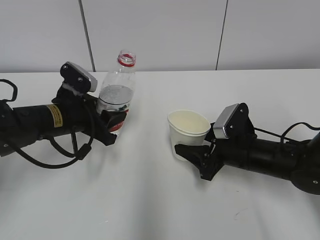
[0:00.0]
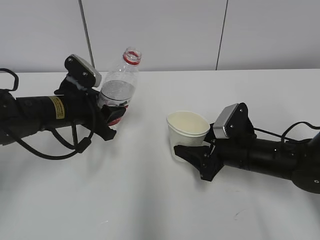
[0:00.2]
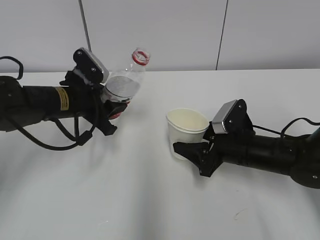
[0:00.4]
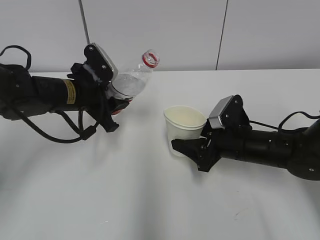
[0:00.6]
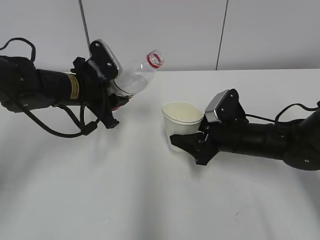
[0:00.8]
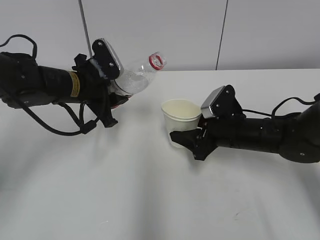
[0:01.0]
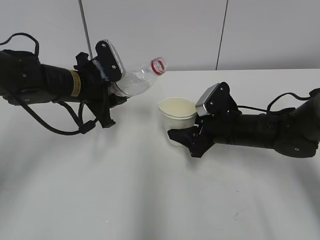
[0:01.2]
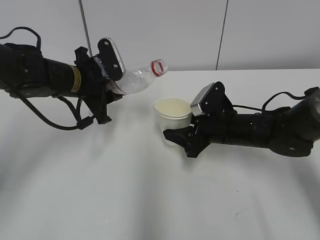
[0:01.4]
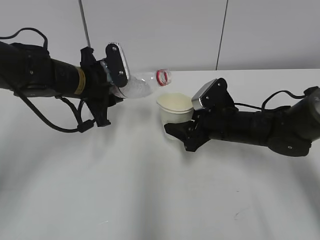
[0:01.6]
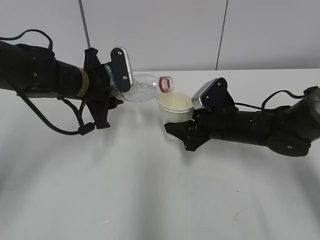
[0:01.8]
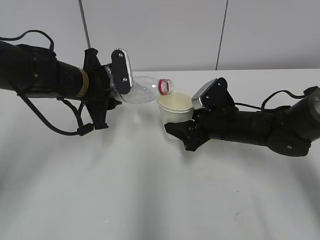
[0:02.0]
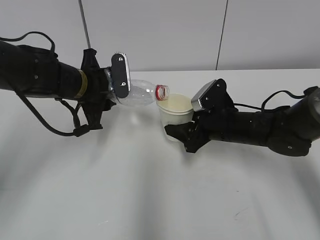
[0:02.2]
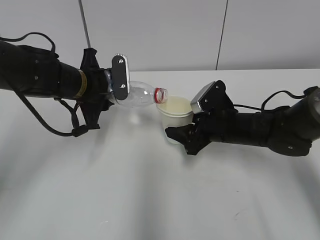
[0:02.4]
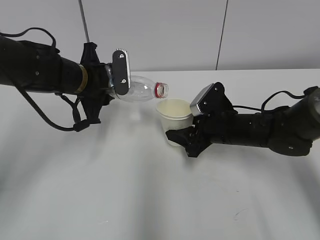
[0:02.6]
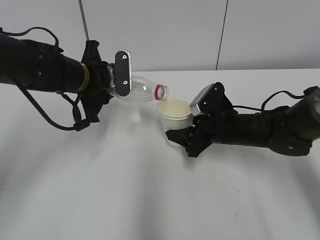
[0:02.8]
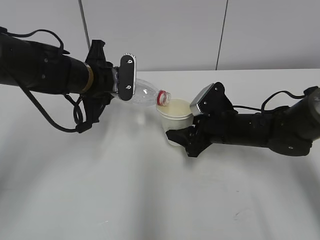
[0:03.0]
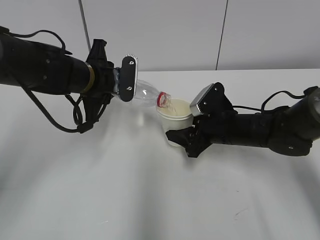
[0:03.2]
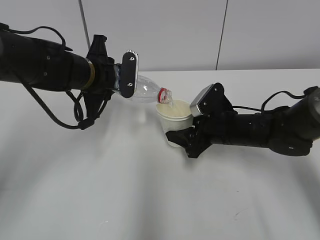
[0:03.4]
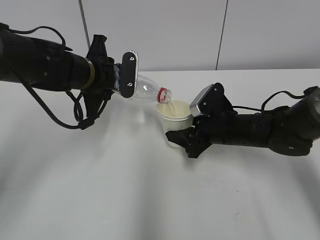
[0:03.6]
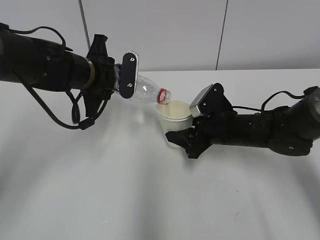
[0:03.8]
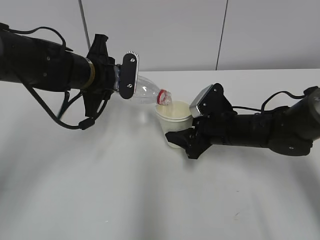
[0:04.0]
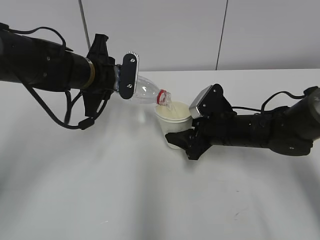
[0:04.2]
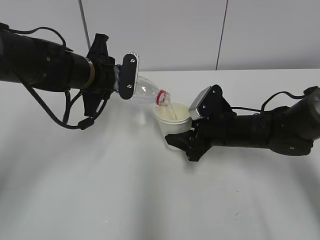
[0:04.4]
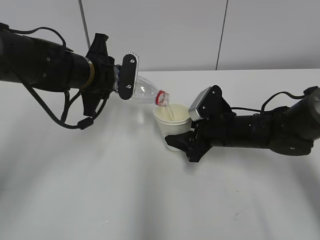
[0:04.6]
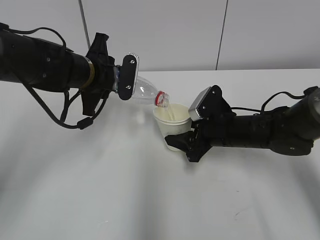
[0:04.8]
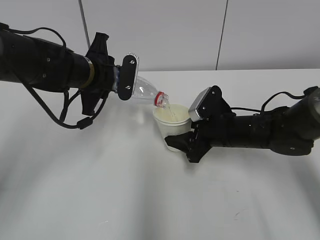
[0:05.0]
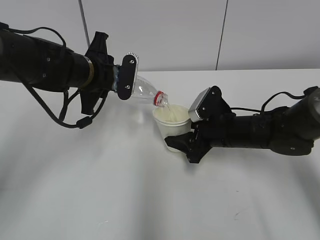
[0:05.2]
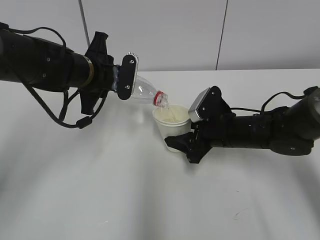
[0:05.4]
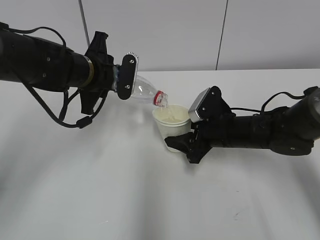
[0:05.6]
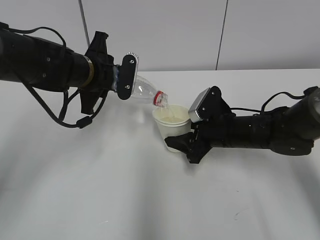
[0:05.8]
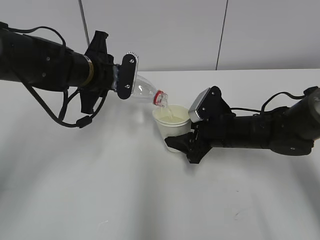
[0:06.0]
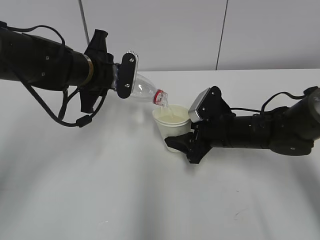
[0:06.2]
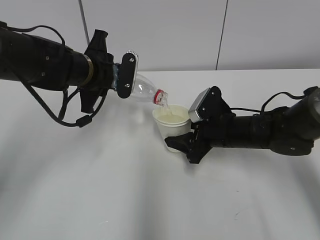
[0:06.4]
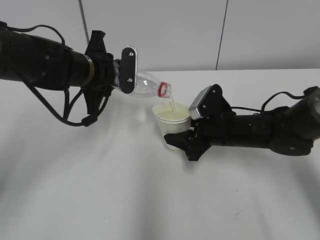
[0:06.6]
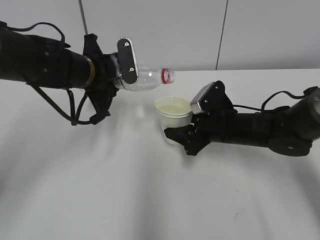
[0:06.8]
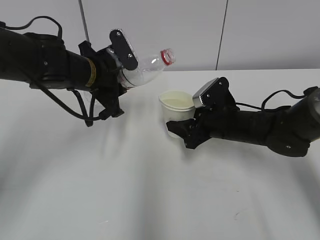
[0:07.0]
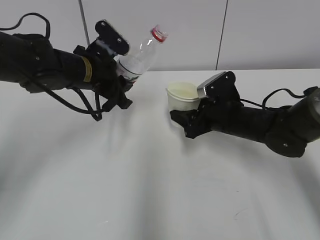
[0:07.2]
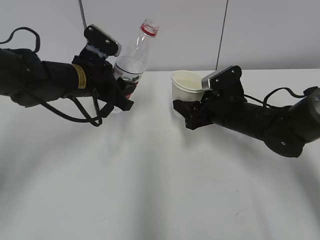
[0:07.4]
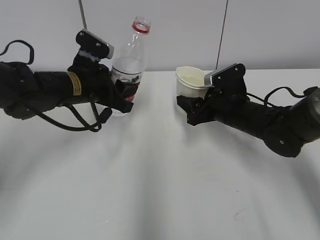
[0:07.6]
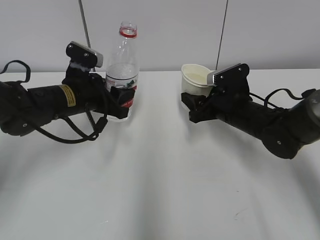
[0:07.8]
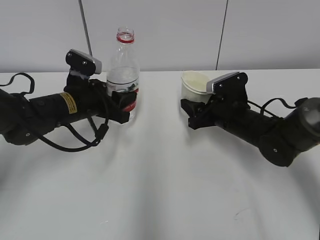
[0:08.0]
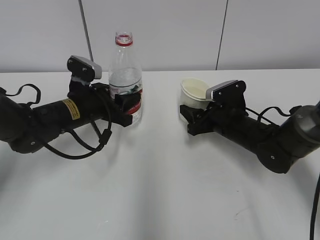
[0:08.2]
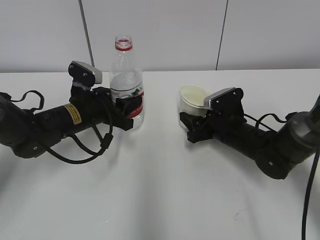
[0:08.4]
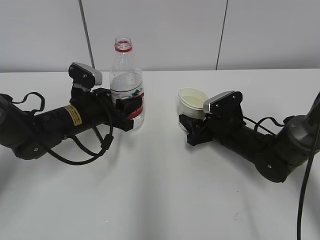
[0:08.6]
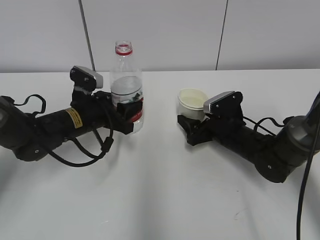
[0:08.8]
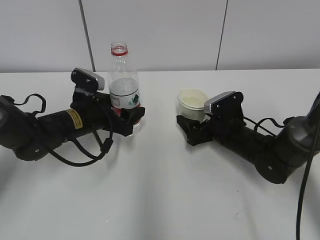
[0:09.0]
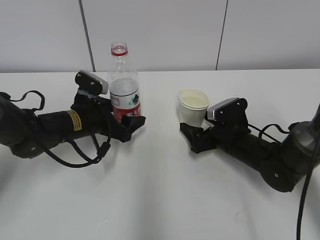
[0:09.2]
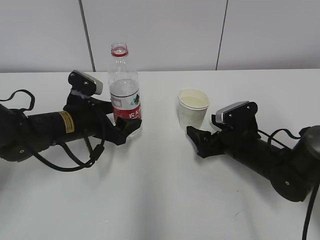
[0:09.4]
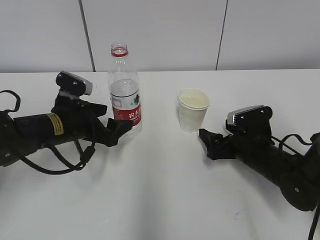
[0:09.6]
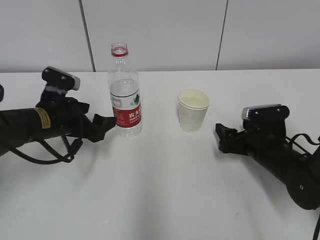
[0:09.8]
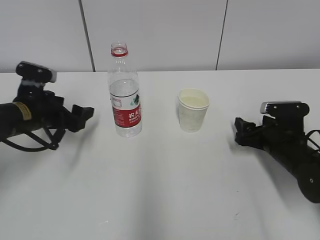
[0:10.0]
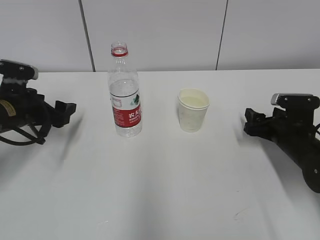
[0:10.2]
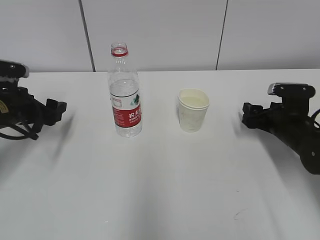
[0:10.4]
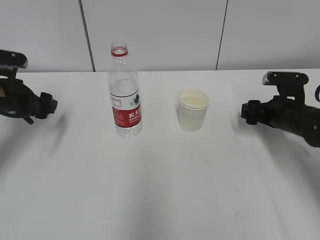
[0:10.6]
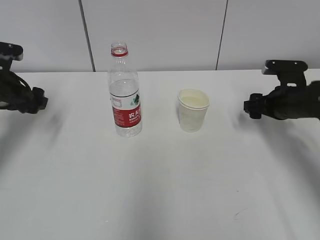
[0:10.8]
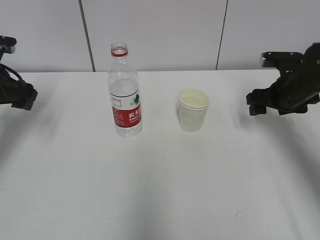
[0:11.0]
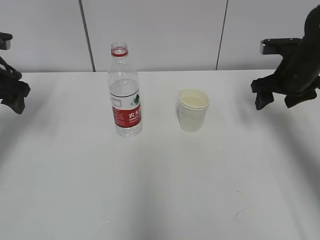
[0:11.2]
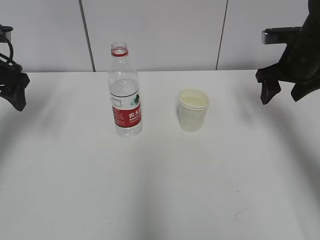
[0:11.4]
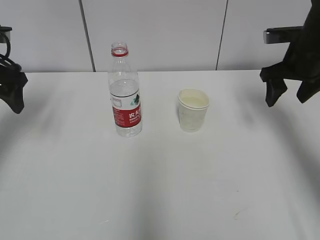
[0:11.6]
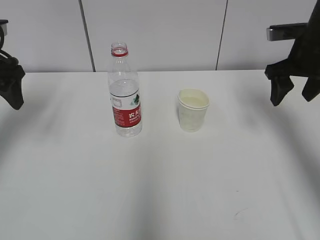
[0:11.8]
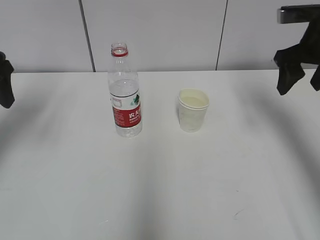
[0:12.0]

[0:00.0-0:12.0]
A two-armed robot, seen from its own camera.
Step, 0:01.2 to 0:04.2: Fill water with the right hand.
Step, 0:01.2 to 0:04.2: Pour water with the left hand.
Step, 0:04.4 to 0:05.4: Collect water with the left hand.
0:00.0 to 0:01.6: The left gripper heads forward, covering some 5 cm, while the right gripper ends up approximately 5 cm from where it was.
0:03.0 to 0:04.4: The grippers move only a little.
0:04.4 to 0:06.0: The two grippers keep their place.
0:07.6 to 0:09.0: Both grippers travel together downward, approximately 5 cm. The right gripper opens its fingers. The left gripper opens its fingers.
0:09.0 to 0:10.4: The right gripper heads to the right, covering approximately 10 cm, and closes up; the left gripper is displaced to the left by about 15 cm.
0:10.4 to 0:12.0: The two grippers go approximately 20 cm upward.

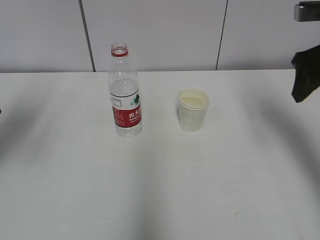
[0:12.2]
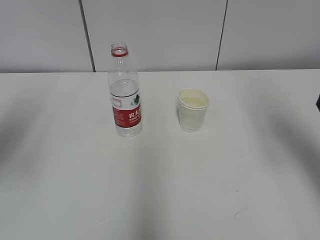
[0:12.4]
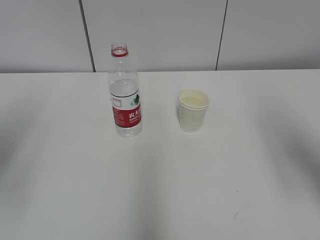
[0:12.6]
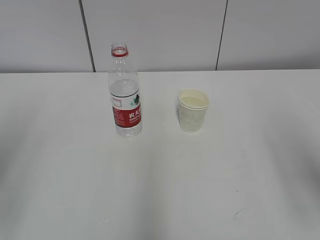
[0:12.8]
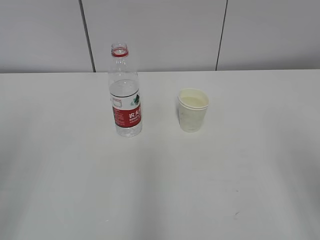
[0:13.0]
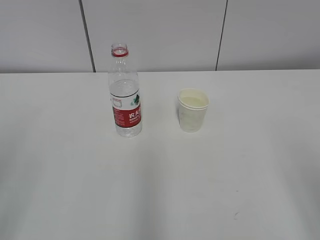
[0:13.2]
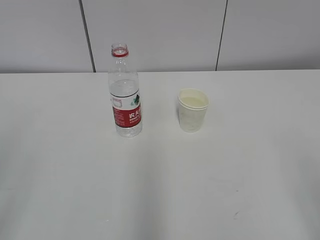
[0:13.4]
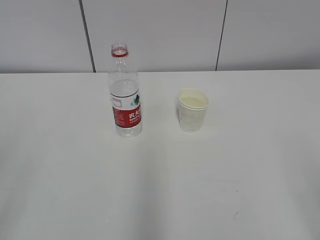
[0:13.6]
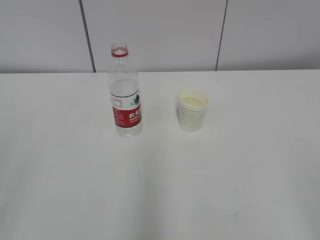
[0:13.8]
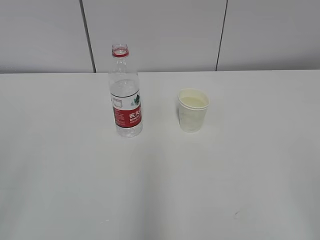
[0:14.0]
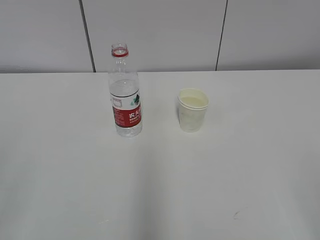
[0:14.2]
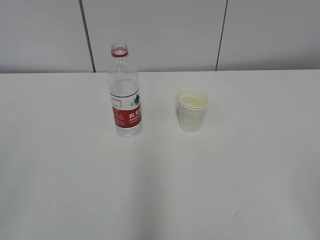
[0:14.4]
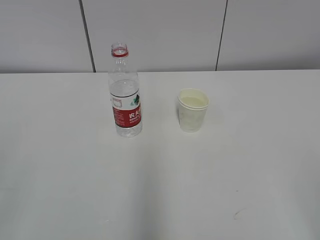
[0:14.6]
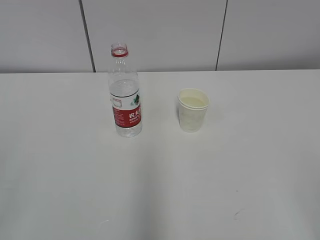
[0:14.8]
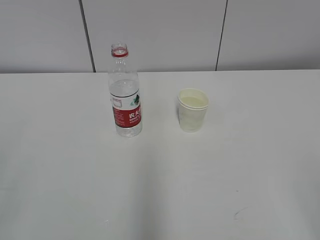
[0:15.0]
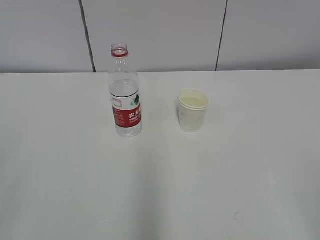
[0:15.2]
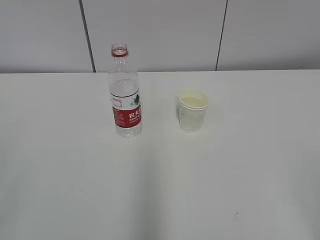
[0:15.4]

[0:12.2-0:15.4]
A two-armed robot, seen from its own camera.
0:12.2 to 0:13.8: Both grippers move backward, approximately 30 cm.

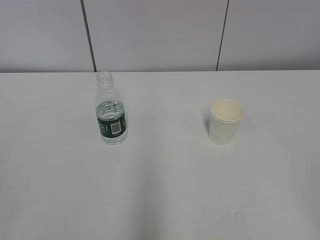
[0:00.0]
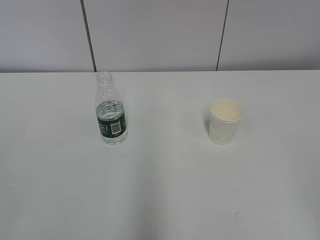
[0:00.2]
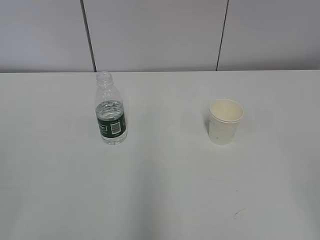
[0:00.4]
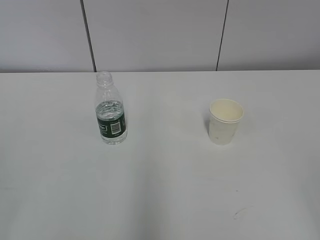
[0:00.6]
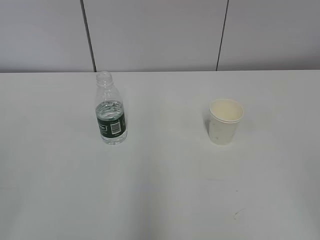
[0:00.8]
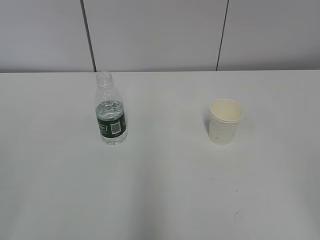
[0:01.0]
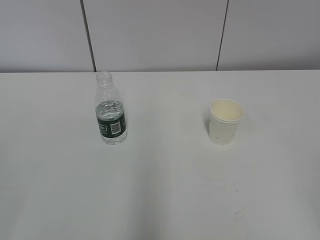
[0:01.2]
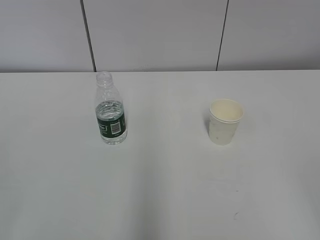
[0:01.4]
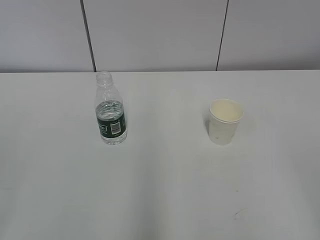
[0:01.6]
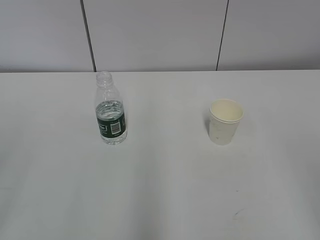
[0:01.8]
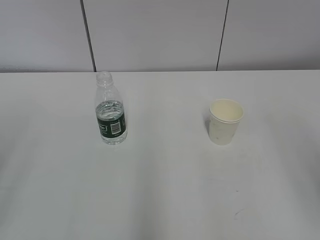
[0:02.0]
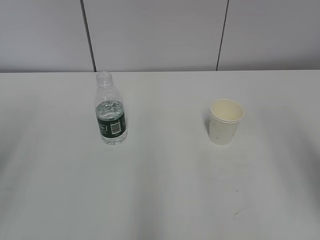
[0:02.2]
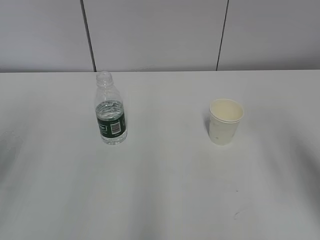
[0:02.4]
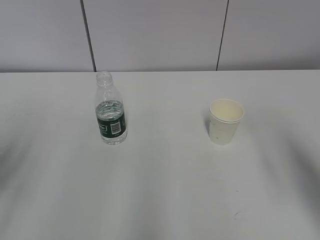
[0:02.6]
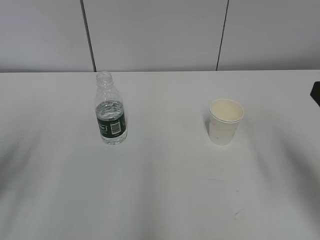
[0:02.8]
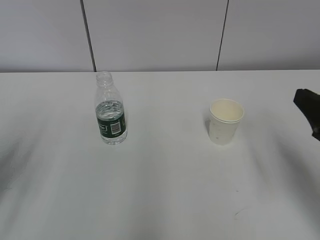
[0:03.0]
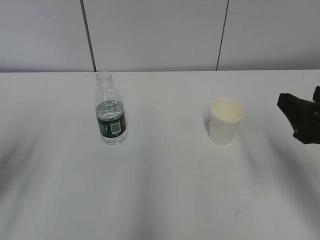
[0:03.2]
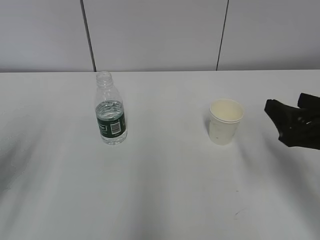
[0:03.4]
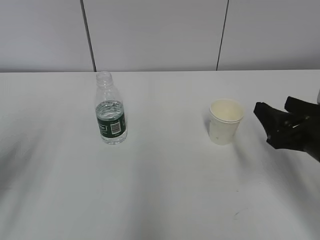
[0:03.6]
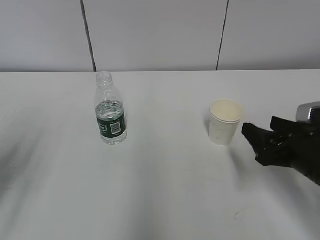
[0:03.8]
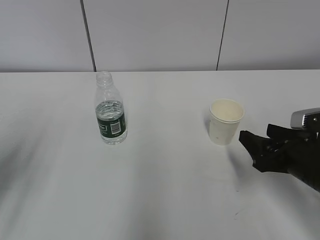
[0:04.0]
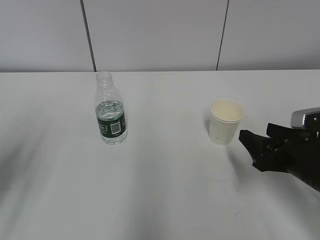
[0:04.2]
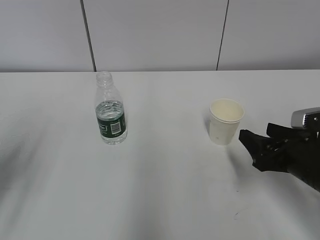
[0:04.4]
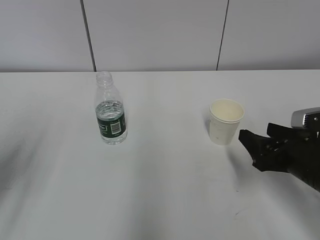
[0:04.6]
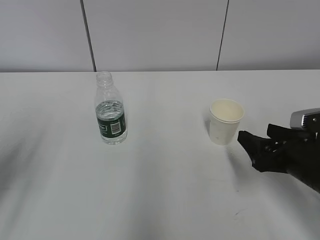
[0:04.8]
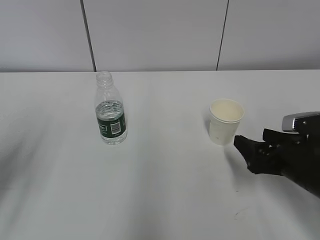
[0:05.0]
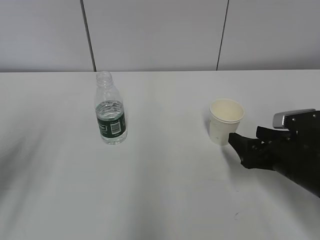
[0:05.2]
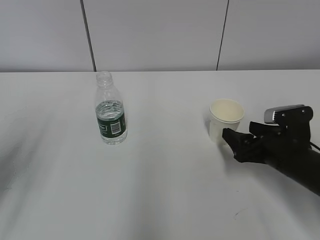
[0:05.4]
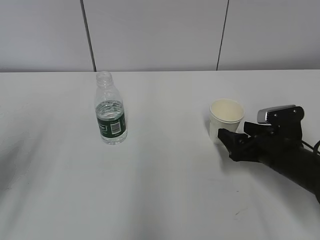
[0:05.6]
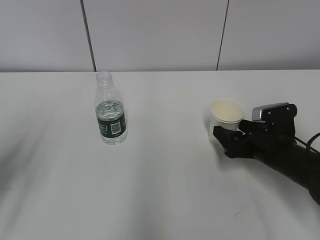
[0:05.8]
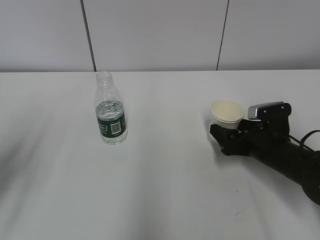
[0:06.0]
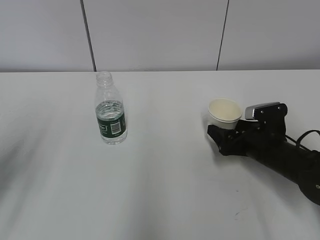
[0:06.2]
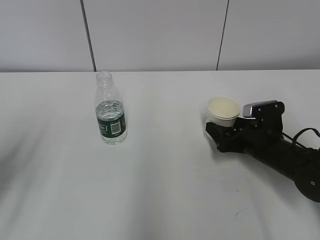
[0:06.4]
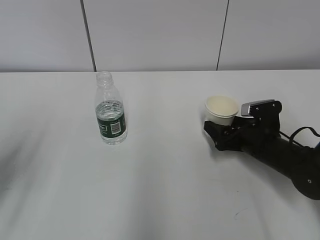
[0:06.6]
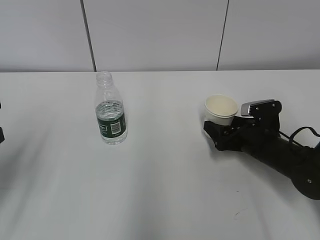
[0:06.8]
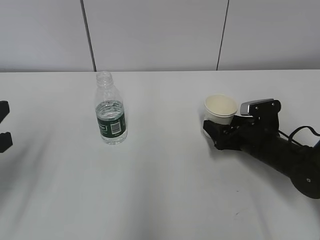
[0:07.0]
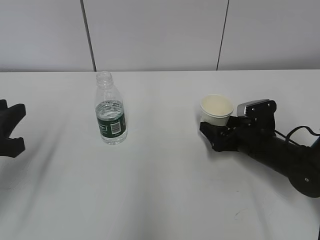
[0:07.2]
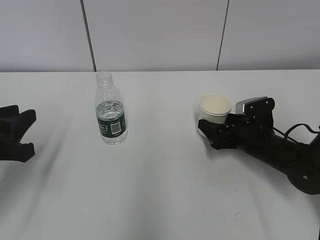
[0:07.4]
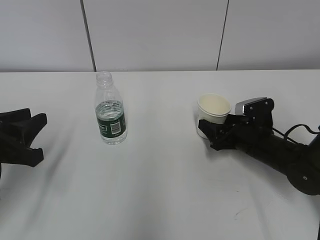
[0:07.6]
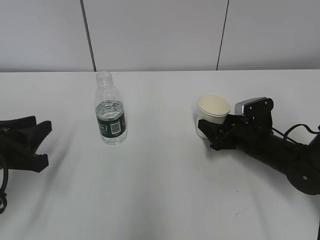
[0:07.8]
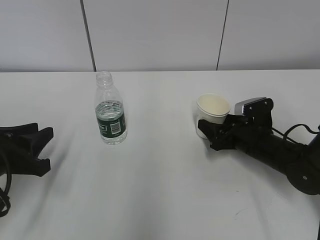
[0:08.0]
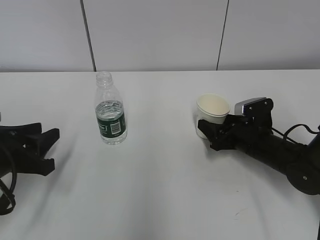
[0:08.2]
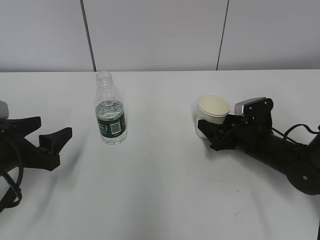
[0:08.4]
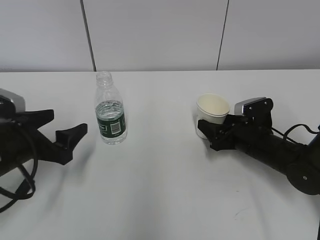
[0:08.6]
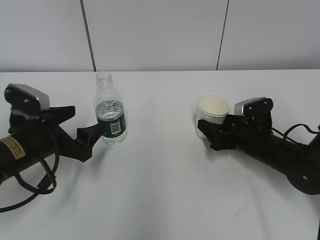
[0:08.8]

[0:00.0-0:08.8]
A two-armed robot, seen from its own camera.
Step, 0:00.0 to 0:08.0: Grab the paper cup with the right hand.
0:01.4 to 0:03.0: Both grippers travel together forward, roughly 20 cm.
0:03.0 to 0:04.4: The right gripper travels downward and forward by about 15 cm.
0:04.4 to 0:05.8: The right gripper travels forward by some 5 cm, and opens.
0:05.8 to 0:07.4: The left gripper goes some 5 cm downward.
0:07.4 to 0:08.8: The right gripper closes its fingers. Meanwhile the left gripper travels forward, to the right and downward by some 10 cm, and opens.
